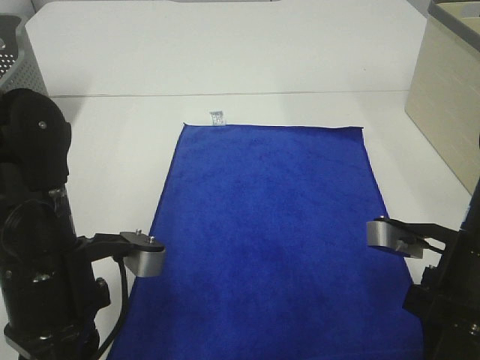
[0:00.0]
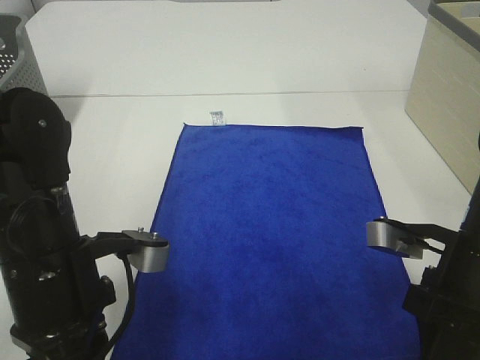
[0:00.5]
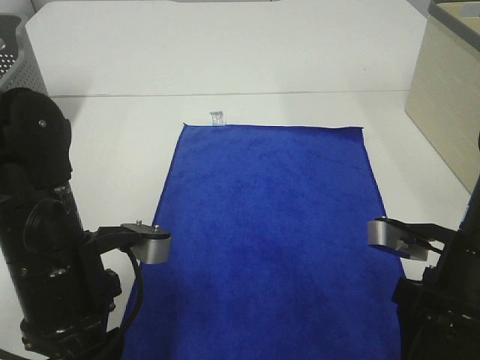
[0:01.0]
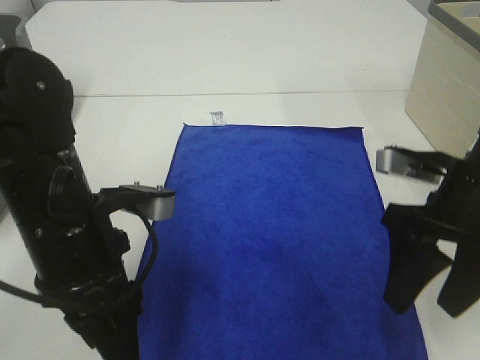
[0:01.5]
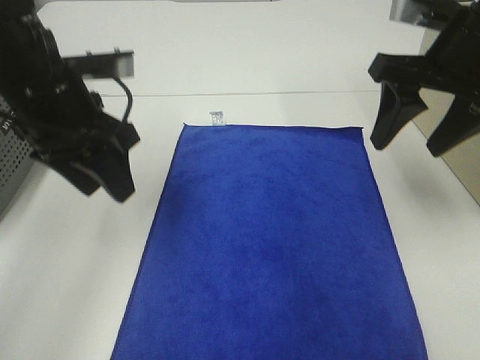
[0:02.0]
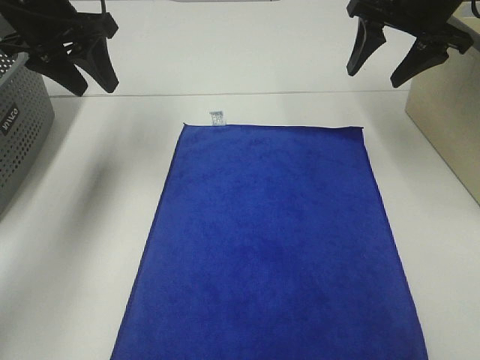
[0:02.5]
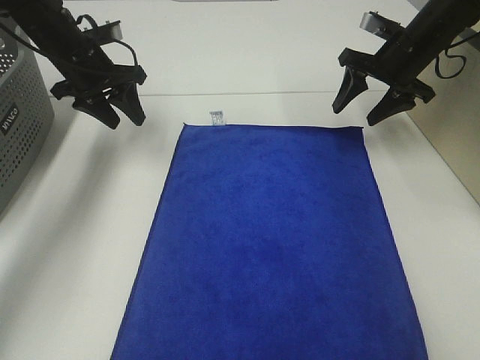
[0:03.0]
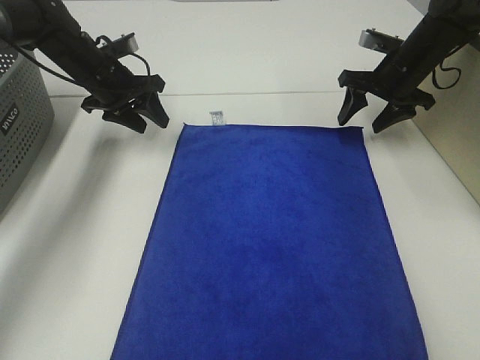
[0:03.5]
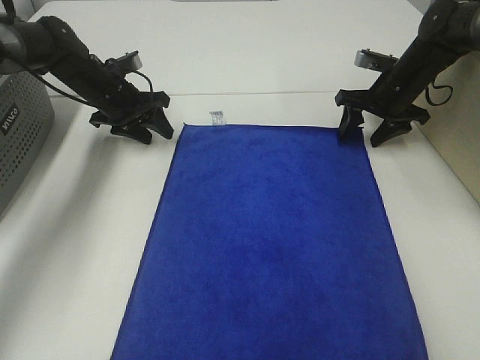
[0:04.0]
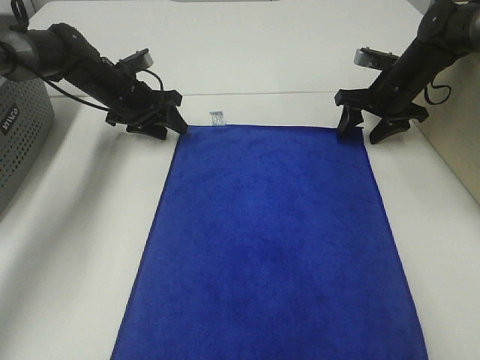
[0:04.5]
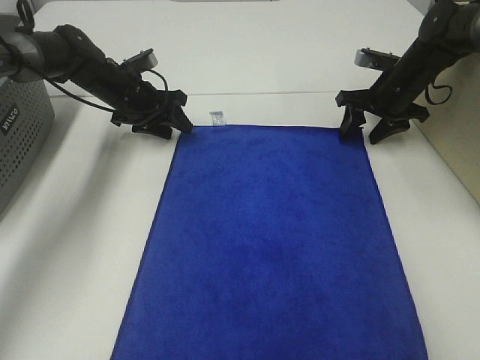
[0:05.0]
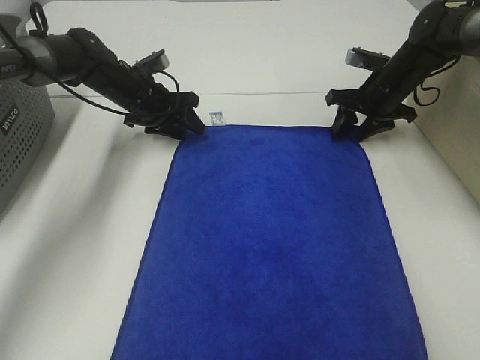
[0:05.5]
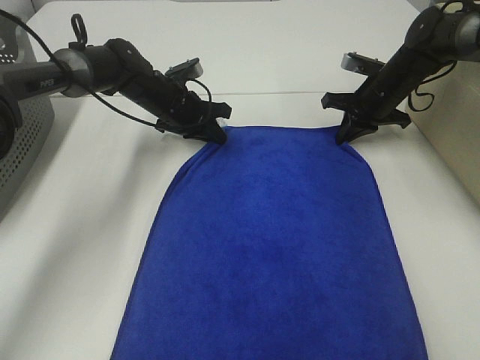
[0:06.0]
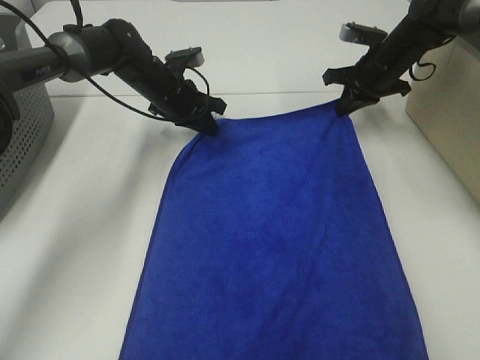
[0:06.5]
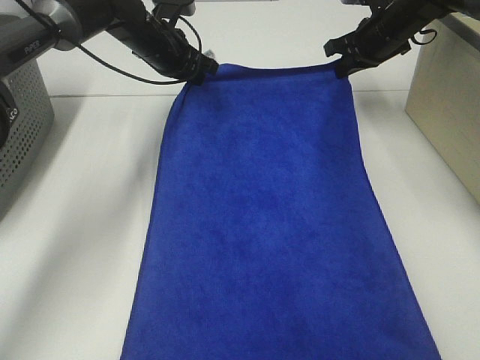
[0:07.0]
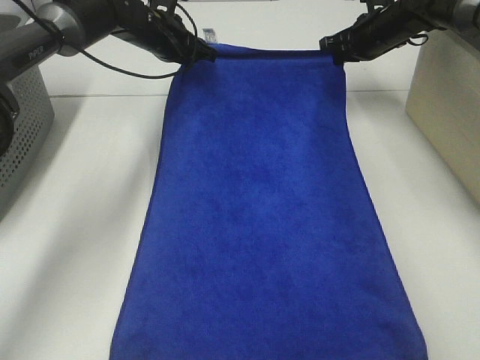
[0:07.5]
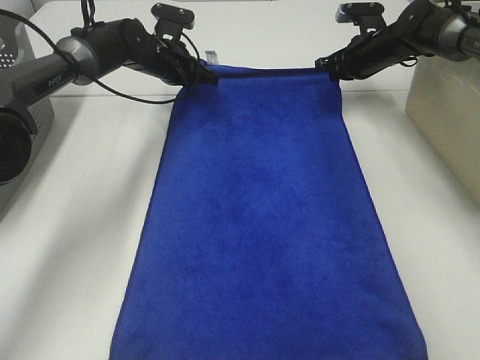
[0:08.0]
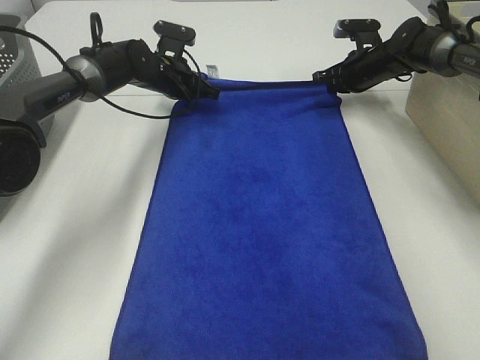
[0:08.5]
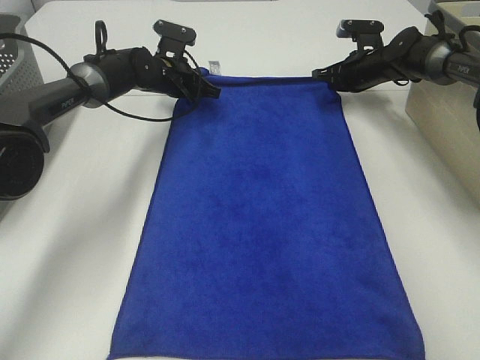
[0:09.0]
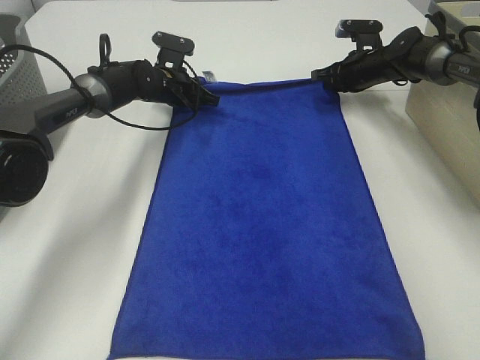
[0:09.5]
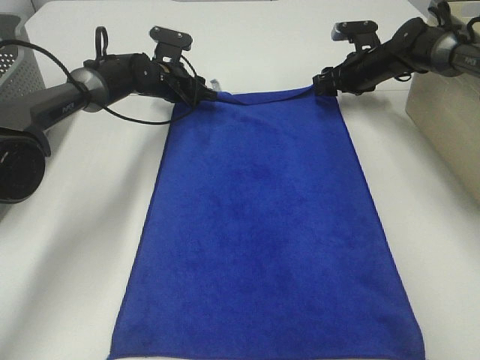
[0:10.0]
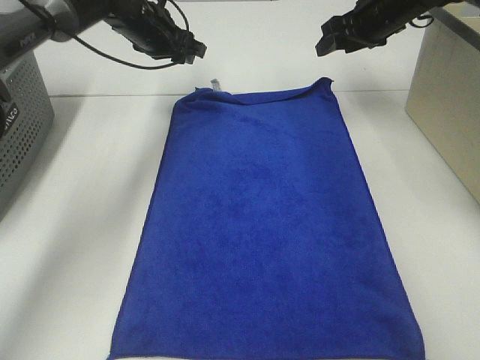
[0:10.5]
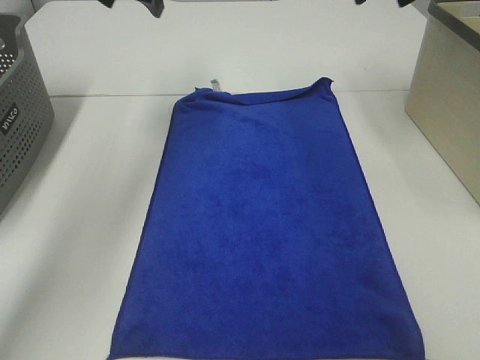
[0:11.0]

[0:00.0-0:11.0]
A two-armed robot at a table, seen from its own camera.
Task of the whole recording: Remove the towel and place it.
Step, 0:00.0 to 0:03.5: Left hand:adjust the blue towel.
Step, 0:00.0 to 0:03.5: Right hand:adjust the blue towel.
0:00.0 to 0:02.0: The left gripper goes roughly 15 cm forward and upward, and opens its fingers; the right gripper shifts approximately 20 cm upward and forward, and opens its fingers.
0:02.0 to 0:03.5: Both grippers travel together forward and downward, some 25 cm.
0:03.5 to 0:05.5: The left gripper travels downward by approximately 5 cm.
0:05.5 to 0:07.5: The left gripper heads upward, covering about 10 cm, and closes its fingers; the right gripper heads upward and forward, covering about 10 cm, and closes its fingers.
0:07.5 to 0:09.0: Both grippers travel together downward, some 10 cm.
0:09.0 to 0:11.0: The right gripper heads upward and backward, covering some 30 cm, and opens its fingers. The left gripper heads upward, covering approximately 25 cm, and opens its fingers.

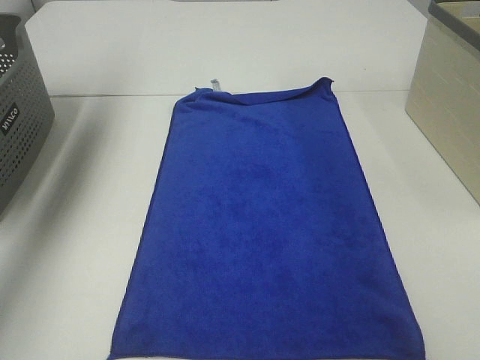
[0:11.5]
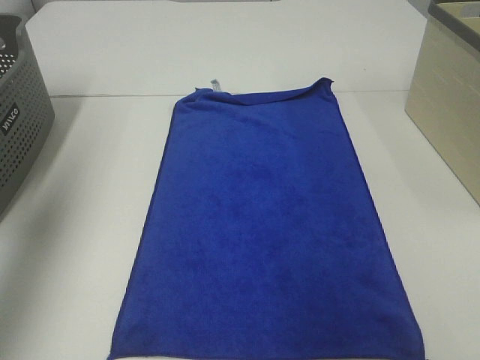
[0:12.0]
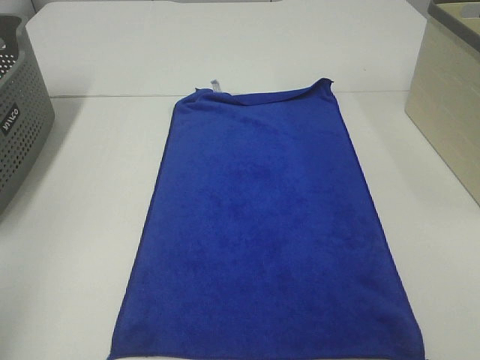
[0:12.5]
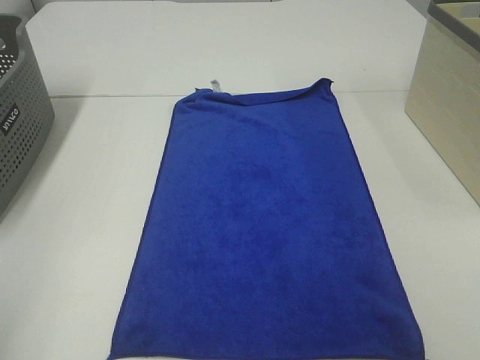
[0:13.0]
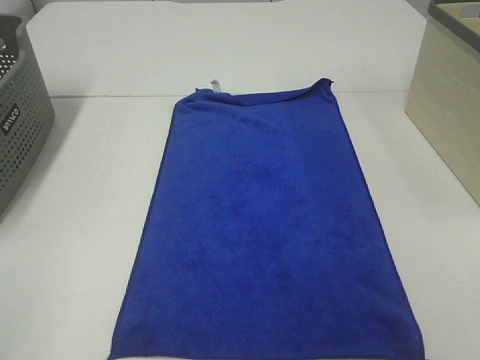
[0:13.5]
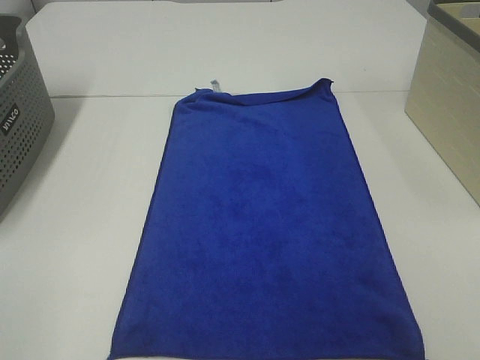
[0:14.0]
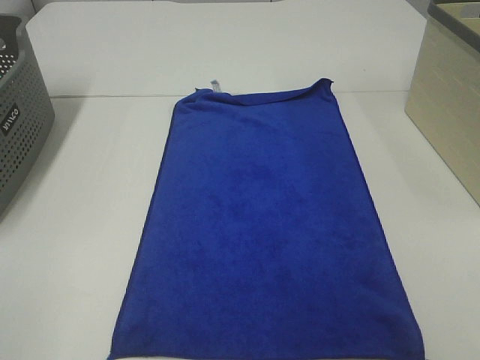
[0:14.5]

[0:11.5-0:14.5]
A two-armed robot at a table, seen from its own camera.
Task of the whole recording: Remove the towel and place it.
0:11.5 to 0:13.0: The left gripper travels backward by about 40 cm.

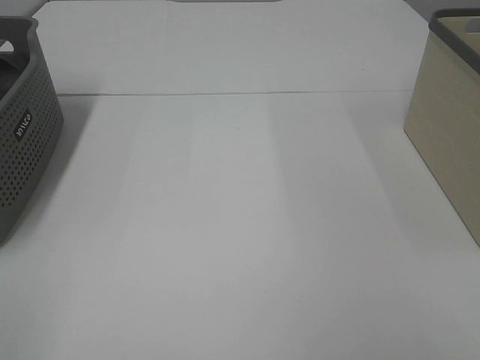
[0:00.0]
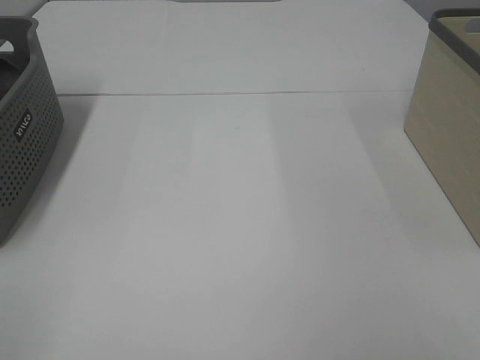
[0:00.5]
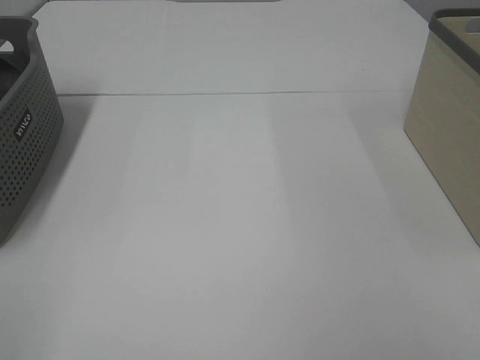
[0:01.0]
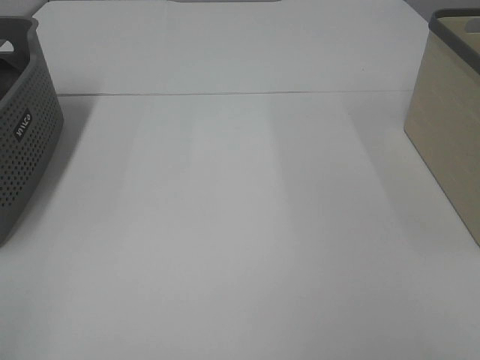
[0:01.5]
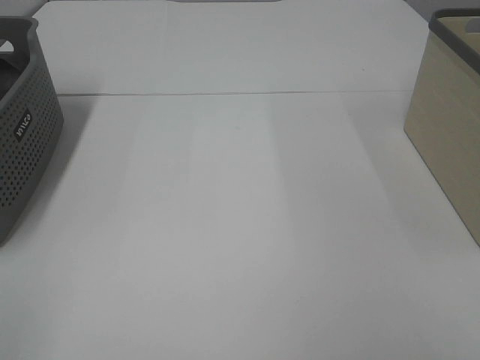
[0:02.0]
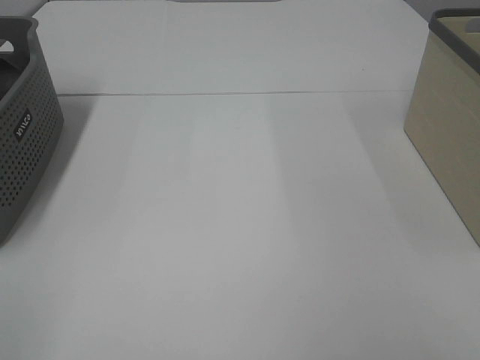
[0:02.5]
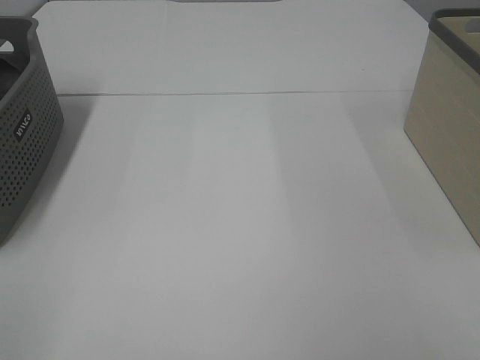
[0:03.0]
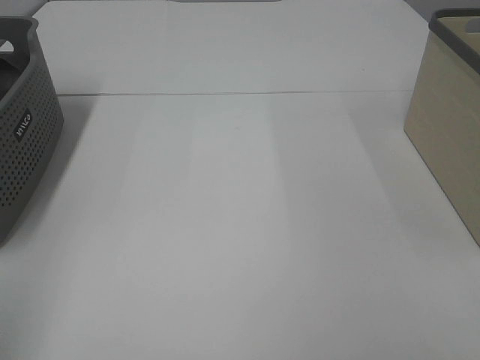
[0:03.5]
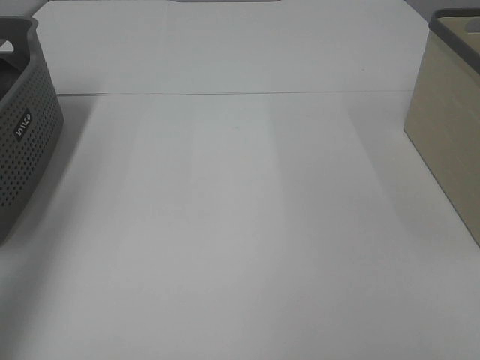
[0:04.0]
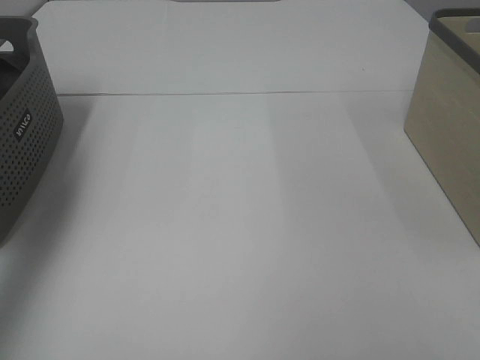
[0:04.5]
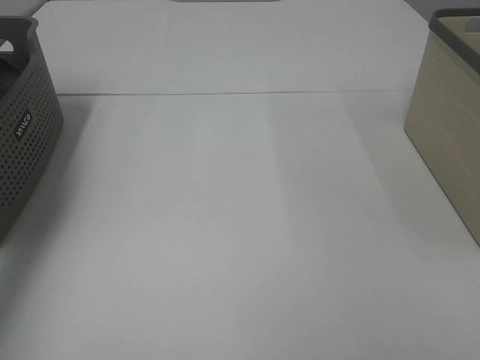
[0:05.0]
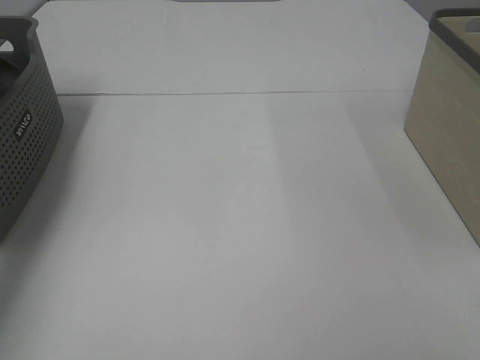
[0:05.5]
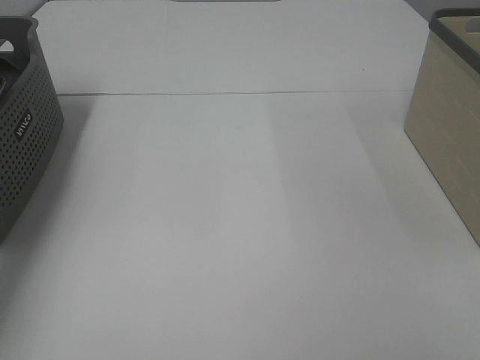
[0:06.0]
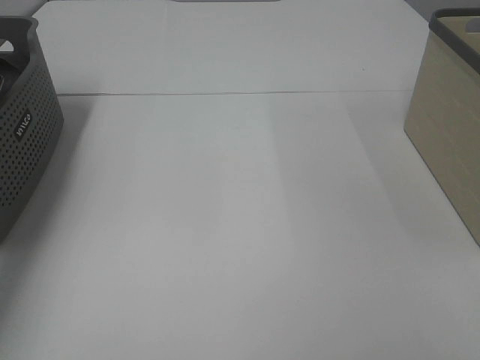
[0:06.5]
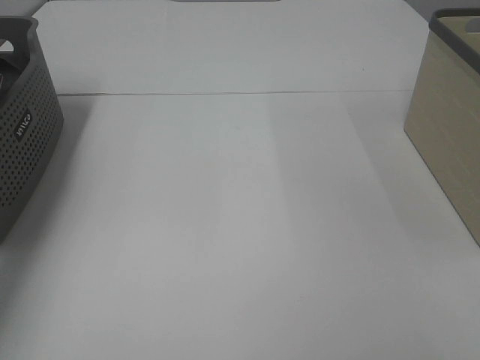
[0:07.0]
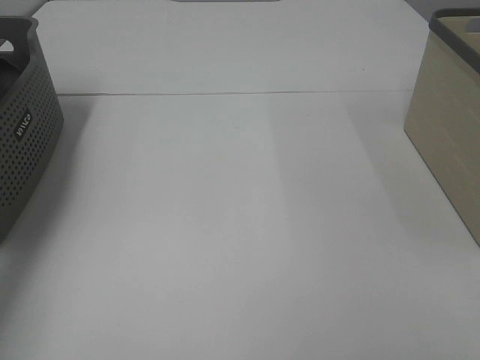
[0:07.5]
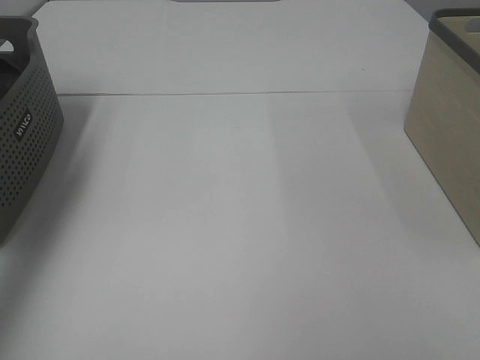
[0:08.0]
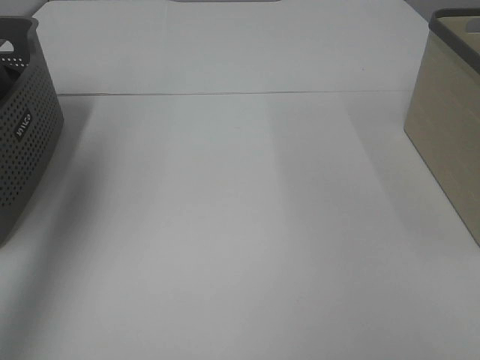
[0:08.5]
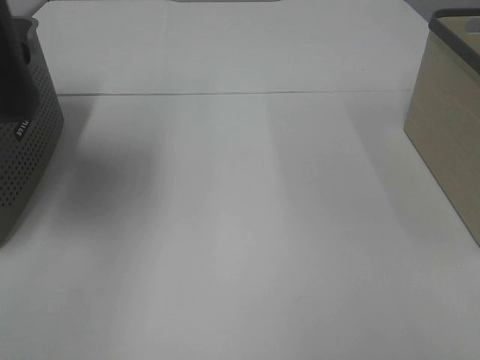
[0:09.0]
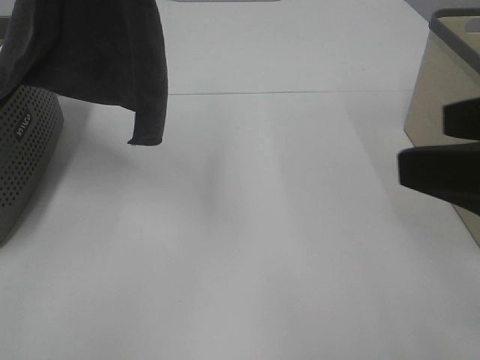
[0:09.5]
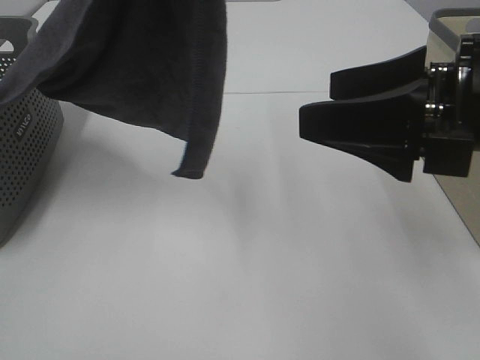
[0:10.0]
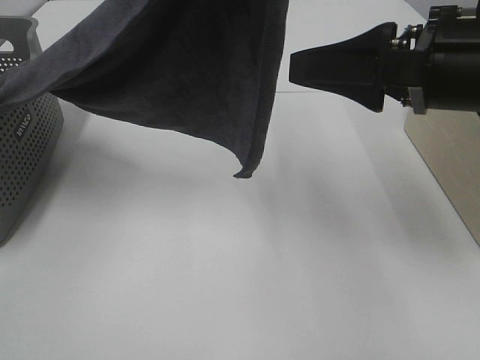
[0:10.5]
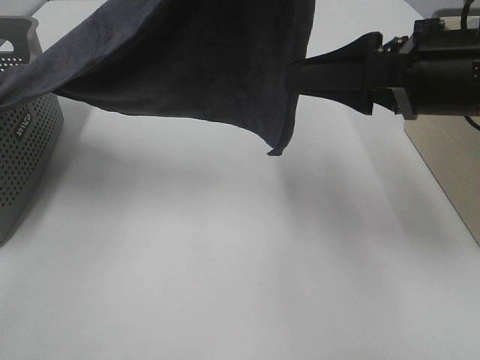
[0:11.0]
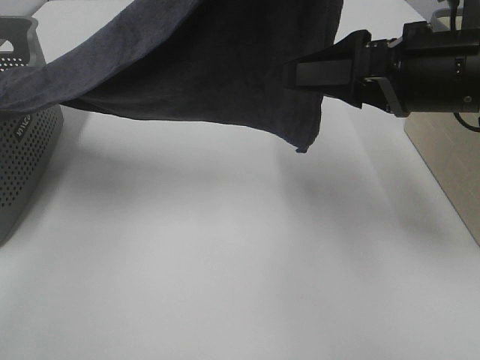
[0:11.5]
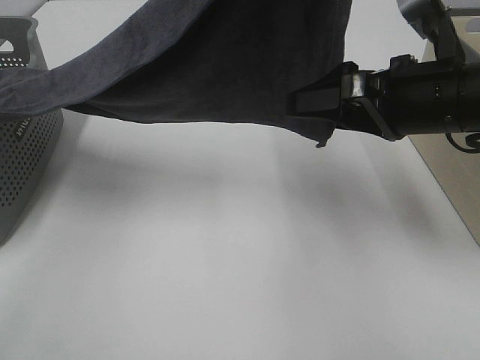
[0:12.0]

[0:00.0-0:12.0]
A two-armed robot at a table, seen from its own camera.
Task of the whole recording: Remove the towel and place it.
0:00.0 to 0:02.0: Both grippers stay about where they are.
0:02.0 to 0:04.0: The left gripper is displaced forward and upward by some 20 cm.
0:04.0 to 0:06.0: The left gripper moves forward and downward, roughly 30 cm.
0:06.0 to 0:08.0: The left gripper shifts about 15 cm upward, and closes up.
0:08.0 to 0:10.0: The left gripper is displaced to the right, backward and upward by some 30 cm. The right gripper shifts roughly 20 cm forward and to the left.
0:10.0 to 0:12.0: The left gripper moves to the right and forward, some 10 cm; the right gripper goes approximately 10 cm forward.
